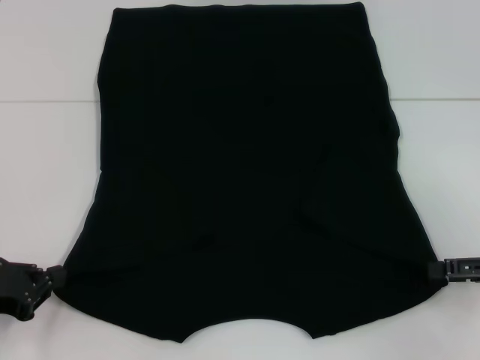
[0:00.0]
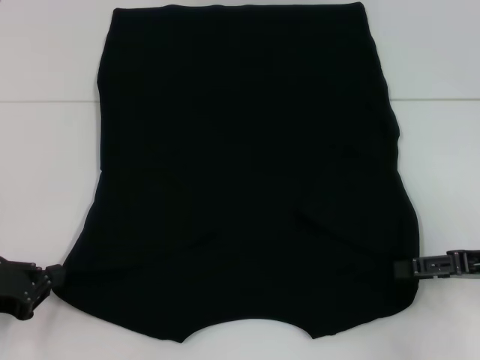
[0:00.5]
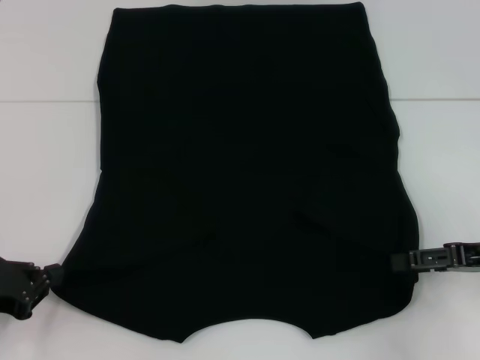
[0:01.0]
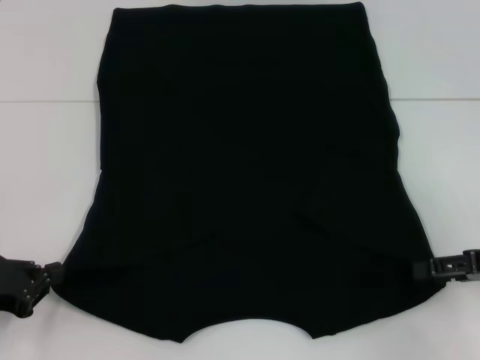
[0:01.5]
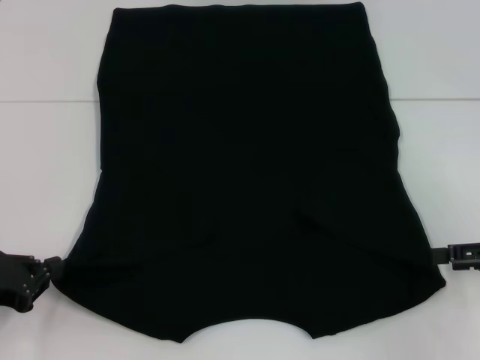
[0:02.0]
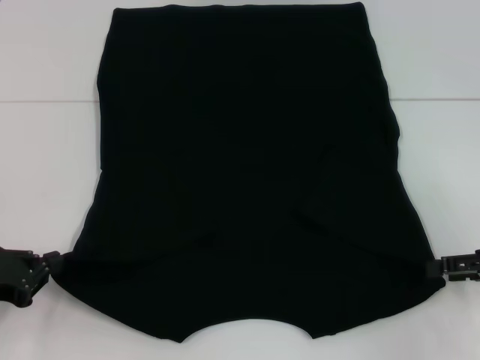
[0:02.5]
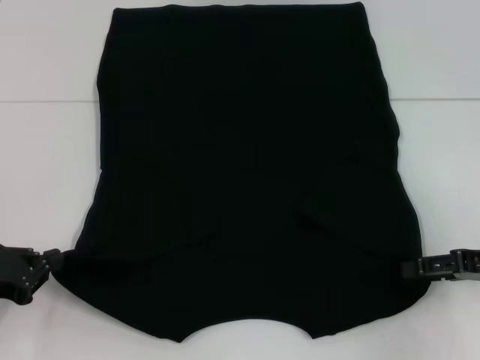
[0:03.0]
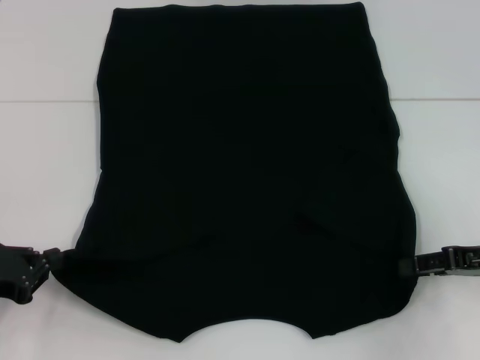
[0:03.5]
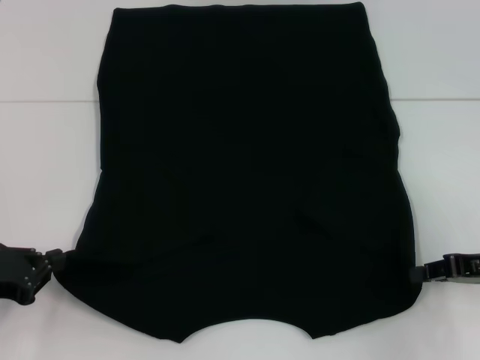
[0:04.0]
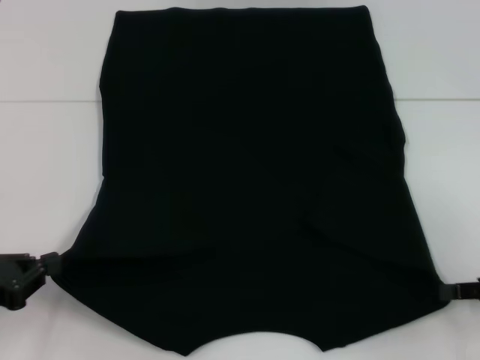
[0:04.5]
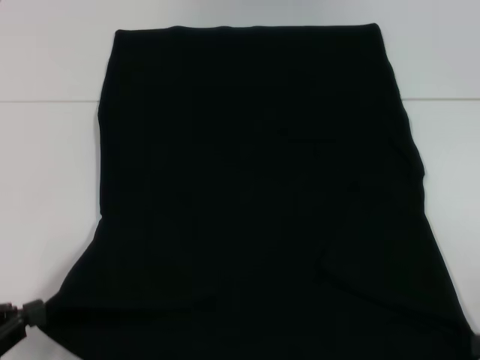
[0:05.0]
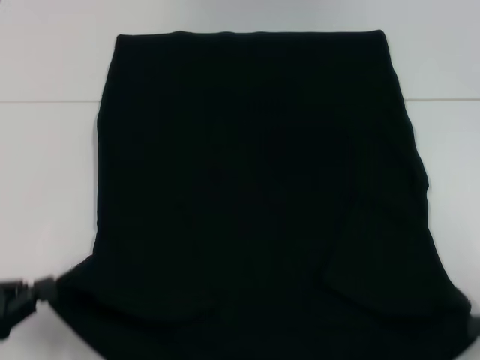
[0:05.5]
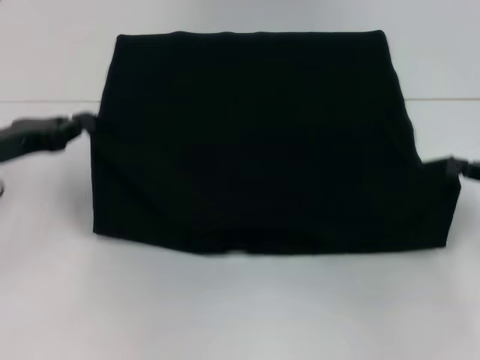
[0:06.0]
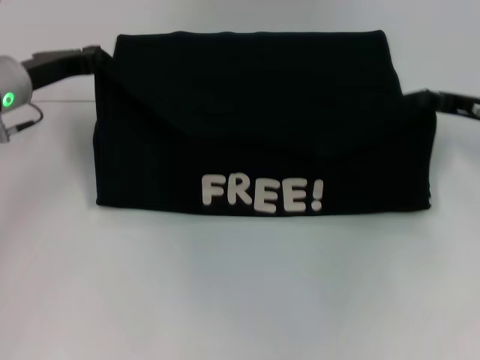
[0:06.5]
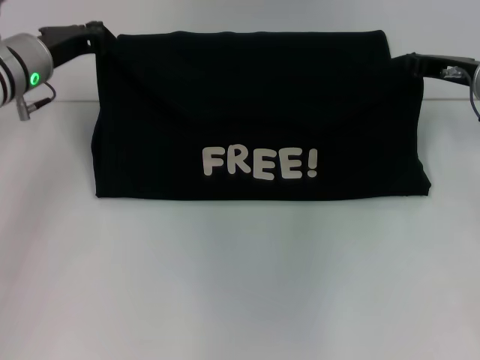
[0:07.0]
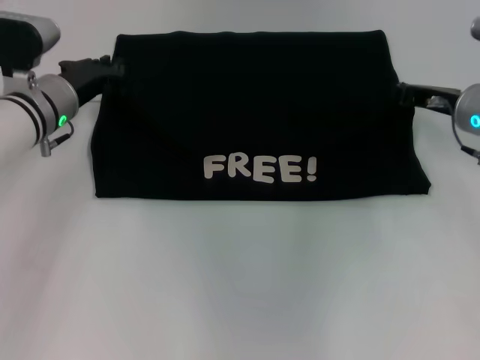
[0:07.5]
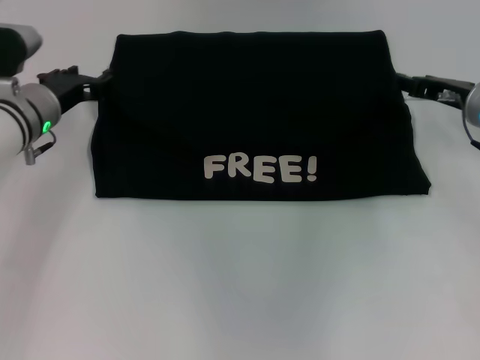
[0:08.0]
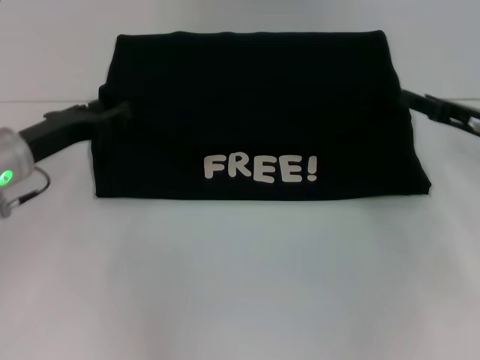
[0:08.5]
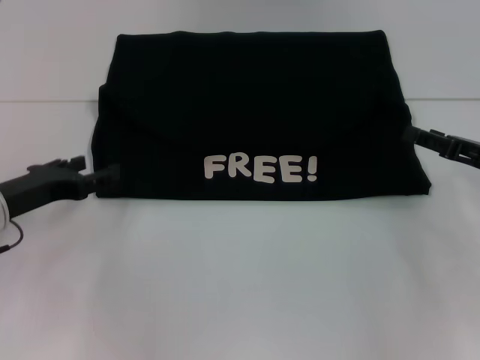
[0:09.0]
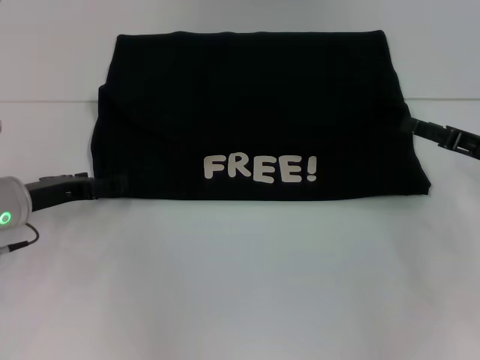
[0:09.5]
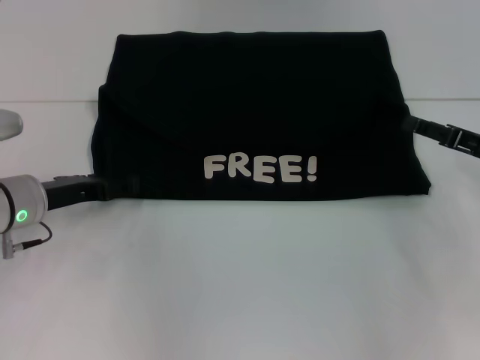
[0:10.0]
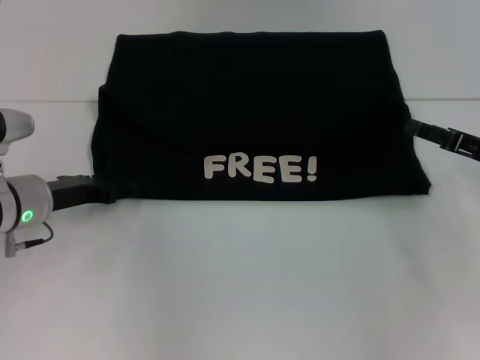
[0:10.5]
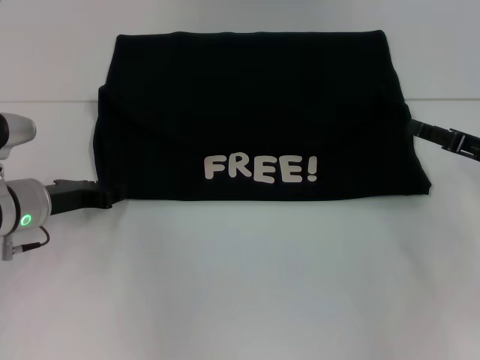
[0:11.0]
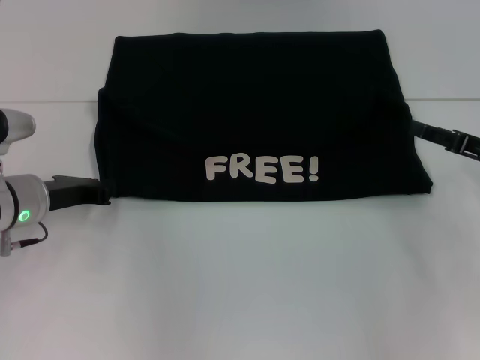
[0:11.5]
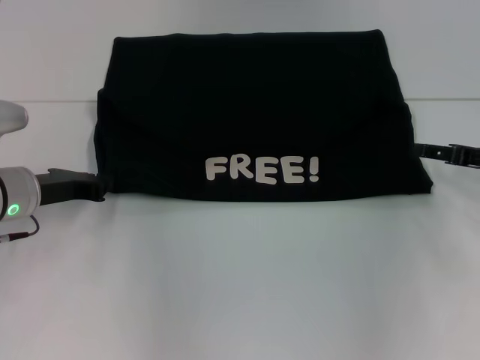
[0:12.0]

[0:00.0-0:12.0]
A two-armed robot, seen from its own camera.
Step, 1.5 to 3.5 s: Grab the bottom right corner with your right hand.
Step, 4.0 to 7.5 s: Fold the clothes with your left hand.
Step, 4.0 to 7.5 s: Fold the clothes with your right hand.
0.0 to 2.0 s: The grippers stay close to where they were, moving slightly.
2.0 to 4.0 s: The right gripper closes its fingers.
4.0 to 6.0 s: The right gripper travels backward and back again, approximately 10 cm each way; the left gripper travels forward and upward by about 10 cm.
6.0 to 8.0 s: The right gripper travels forward and to the left by about 15 cm, and opens. Meanwhile the left gripper shifts about 15 cm forward and to the right, and opens its fingers.
8.0 to 10.0 s: The right gripper heads backward and to the right, covering roughly 10 cm, and opens up, while the left gripper goes roughly 10 cm backward, and opens up.
10.0 to 12.0 s: The left gripper closes its fingers.

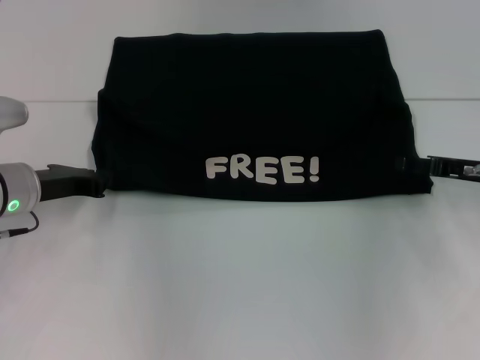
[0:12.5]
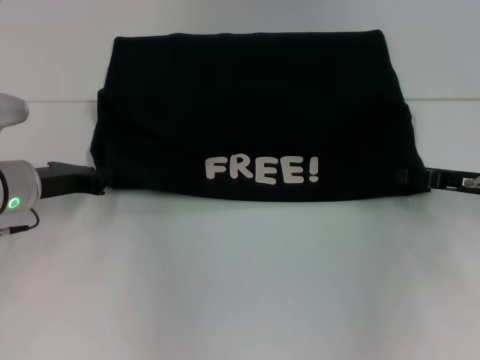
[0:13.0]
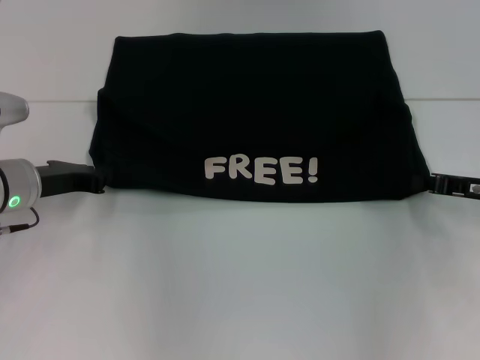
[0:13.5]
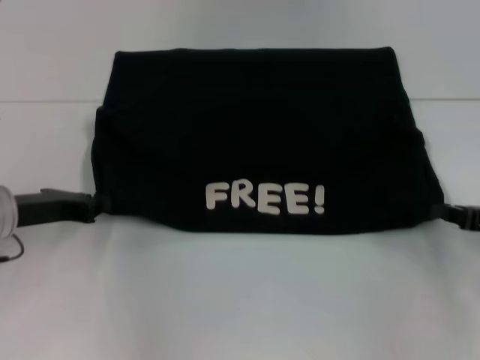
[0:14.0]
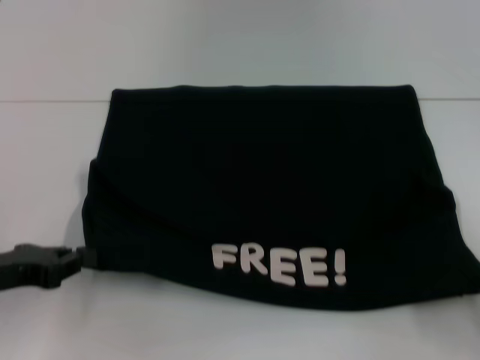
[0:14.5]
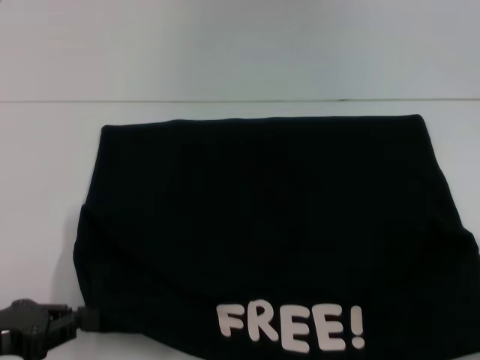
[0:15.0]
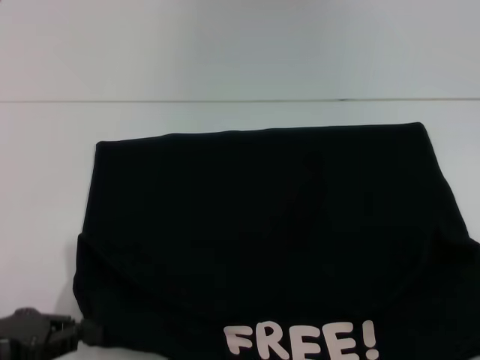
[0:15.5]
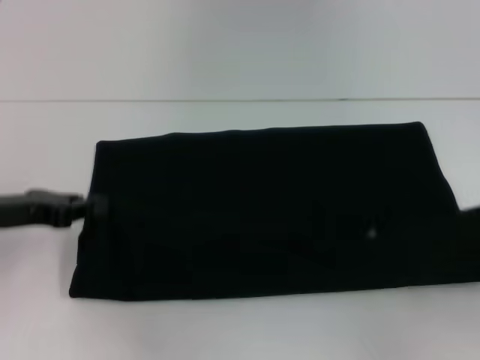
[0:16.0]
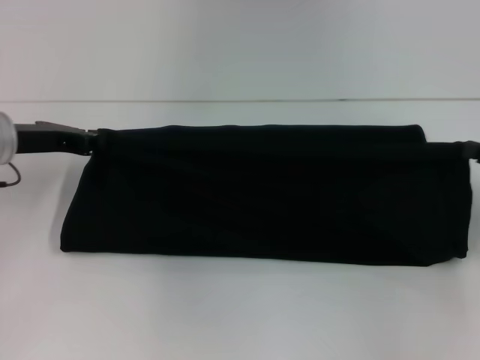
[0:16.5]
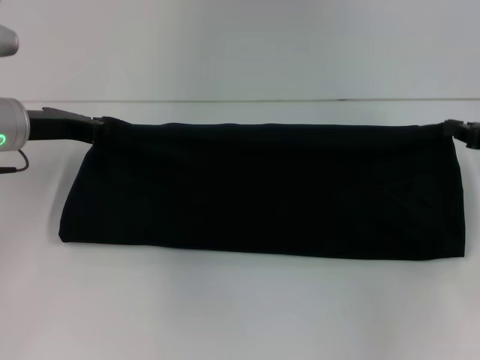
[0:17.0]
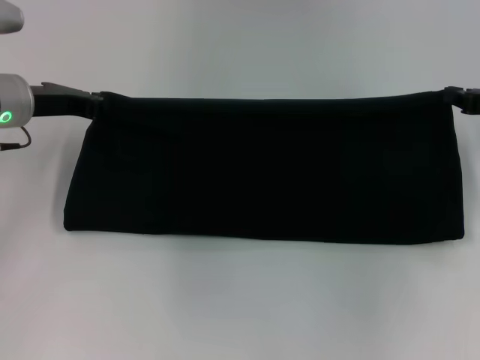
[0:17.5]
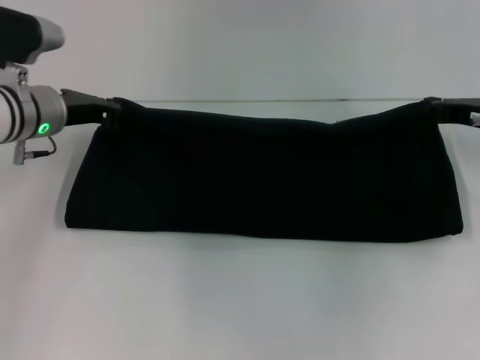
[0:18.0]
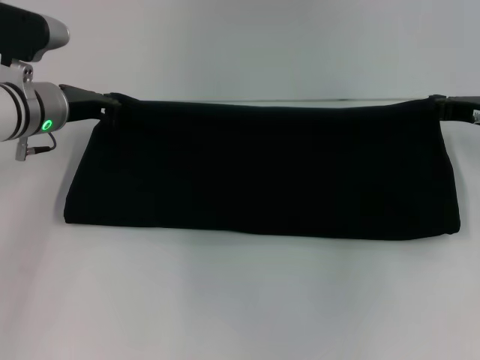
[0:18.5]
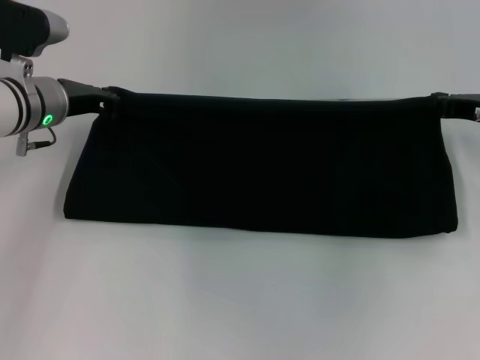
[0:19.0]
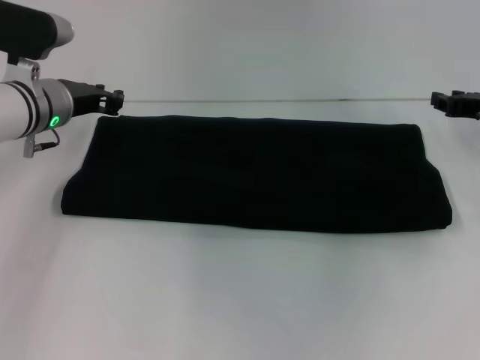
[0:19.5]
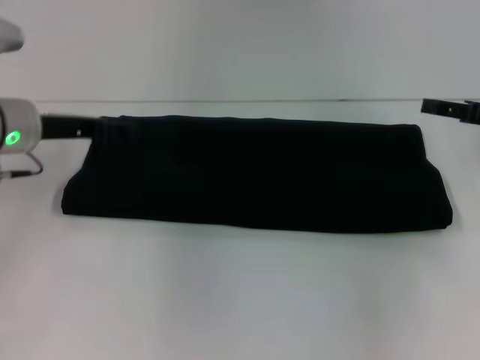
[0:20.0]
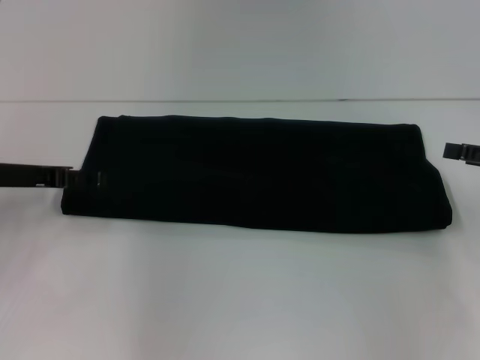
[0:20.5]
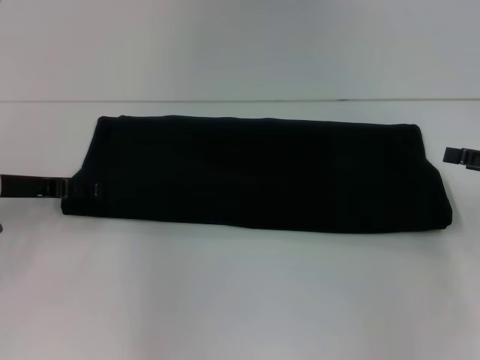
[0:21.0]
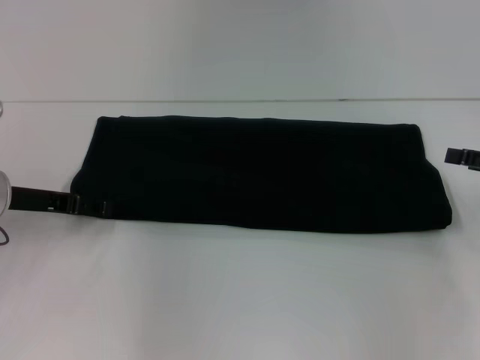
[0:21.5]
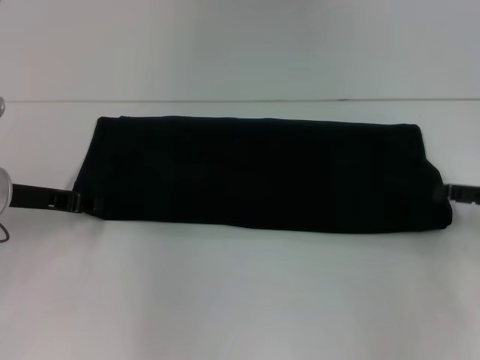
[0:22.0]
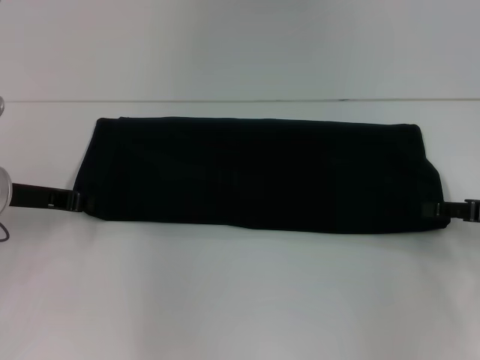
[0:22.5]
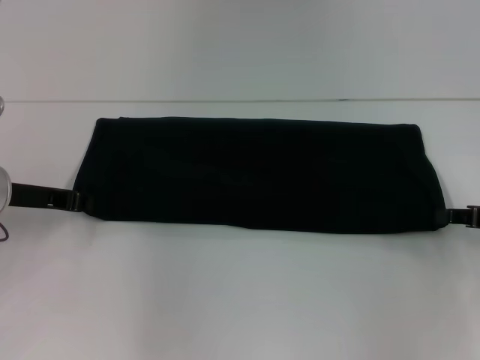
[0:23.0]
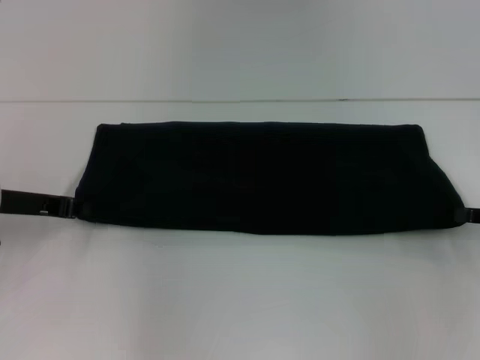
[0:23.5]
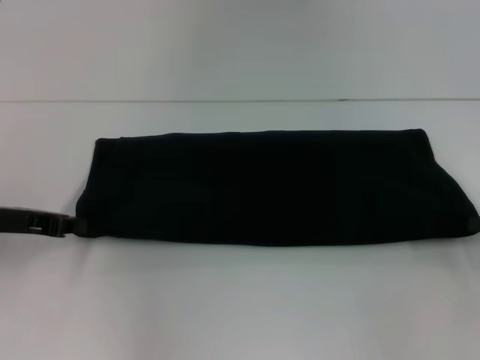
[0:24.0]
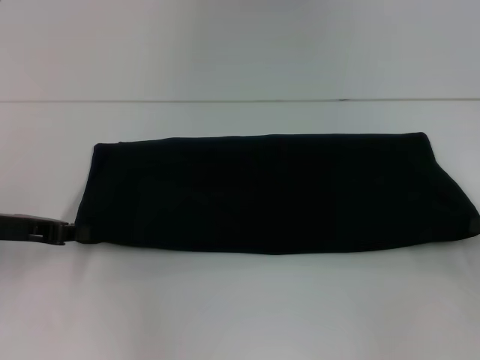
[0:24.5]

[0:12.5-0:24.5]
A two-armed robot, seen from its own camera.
Step, 12.5 to 15.0 s: Pull the clothes with your left hand.
Step, 12.5 to 15.0 s: Pull the clothes with your right hand.
Step, 15.5 to 19.0 s: Fold the clothes with your right hand.
12.5 to 14.5 s: The right gripper travels backward and to the right by some 20 cm, and closes up. The left gripper moves backward, some 10 cm.
14.5 to 16.5 s: The grippers both shift forward by roughly 15 cm.
16.5 to 18.5 s: The left gripper shifts by some 5 cm; the right gripper is displaced forward and to the left by roughly 10 cm.
18.5 to 20.5 s: The left gripper goes about 10 cm backward and to the left, and opens up; the right gripper moves backward and to the right, some 10 cm, and opens.
20.5 to 22.5 s: The left gripper closes.
22.5 to 24.5 s: The right gripper closes its fingers.

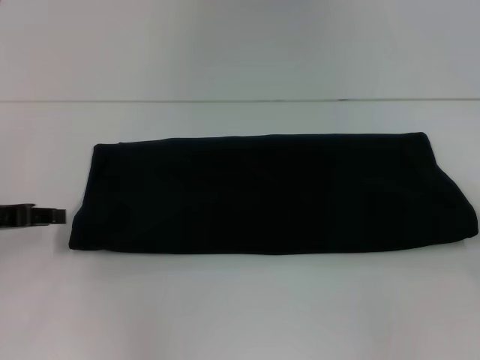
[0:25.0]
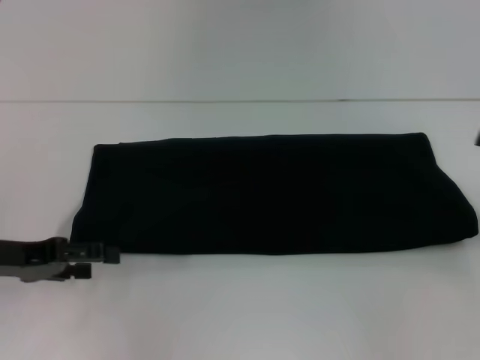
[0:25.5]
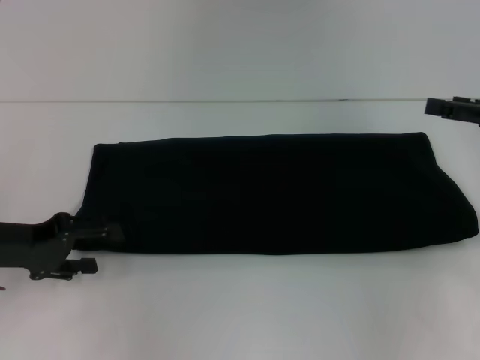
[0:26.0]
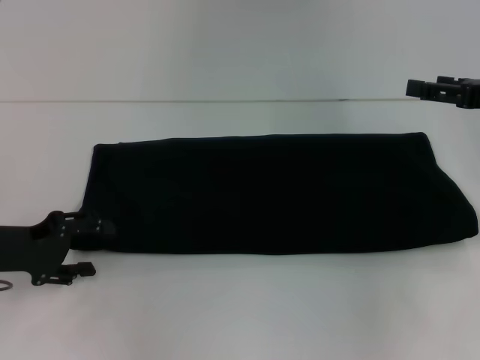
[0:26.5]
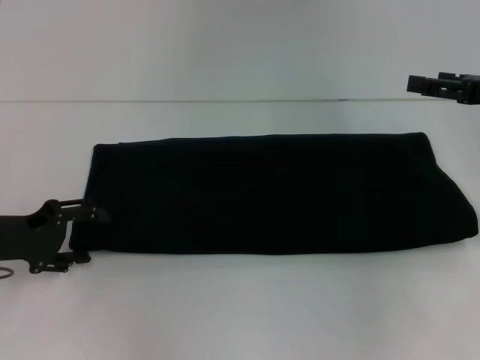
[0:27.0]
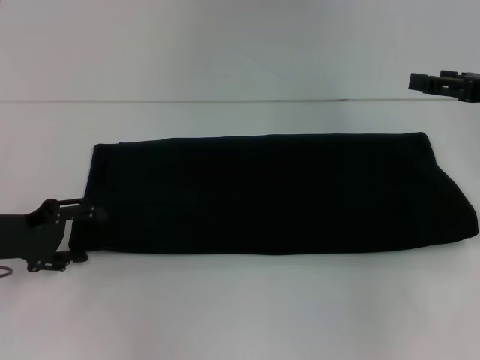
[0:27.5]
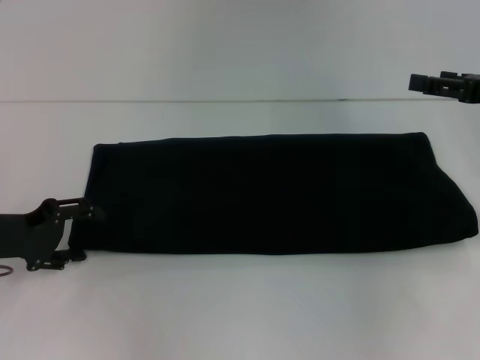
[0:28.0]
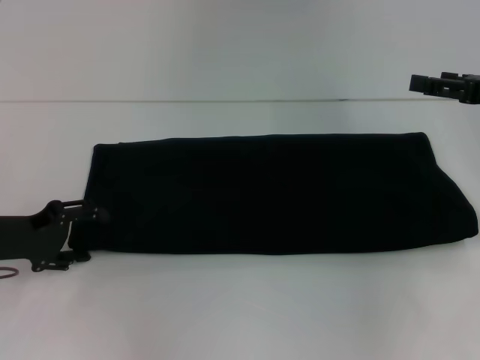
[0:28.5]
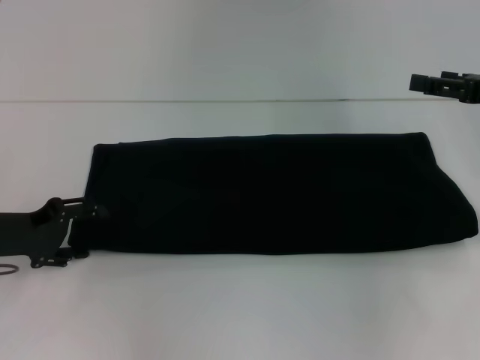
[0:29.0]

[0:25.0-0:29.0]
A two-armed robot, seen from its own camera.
25.0 to 27.0 s: The left gripper opens up. The right gripper is displaced forward, to the left and upward by roughly 15 cm, and opens.
27.0 to 29.0 s: The two grippers keep their place.
